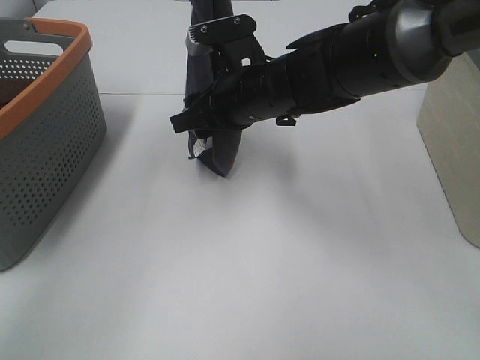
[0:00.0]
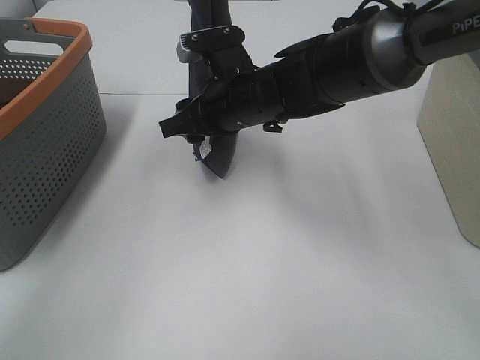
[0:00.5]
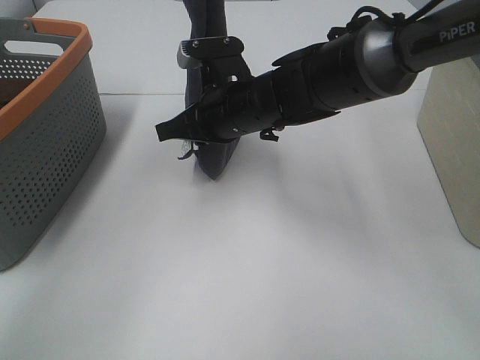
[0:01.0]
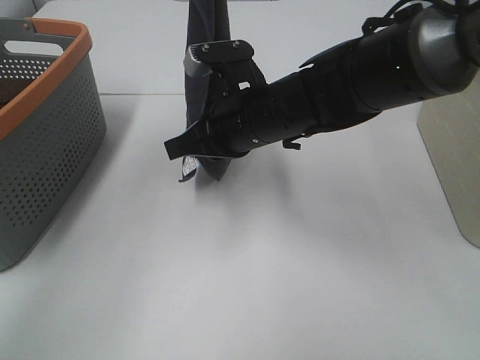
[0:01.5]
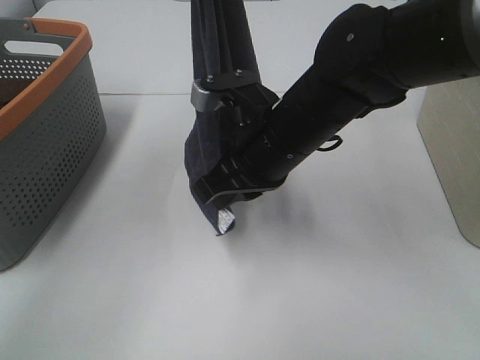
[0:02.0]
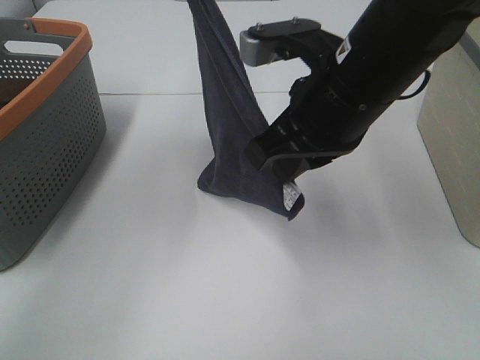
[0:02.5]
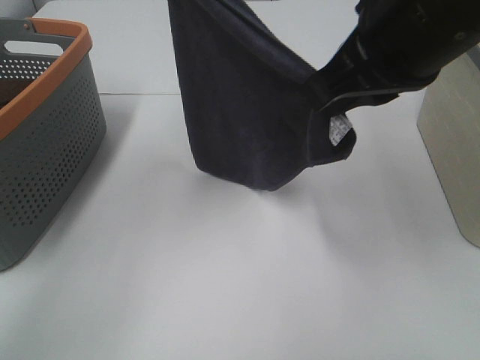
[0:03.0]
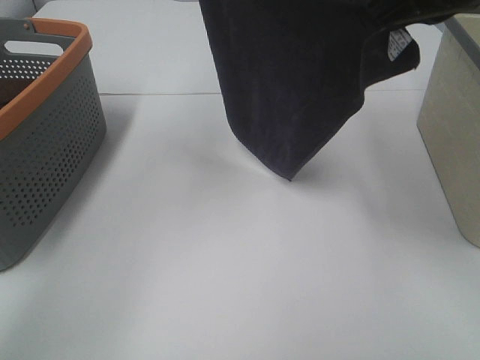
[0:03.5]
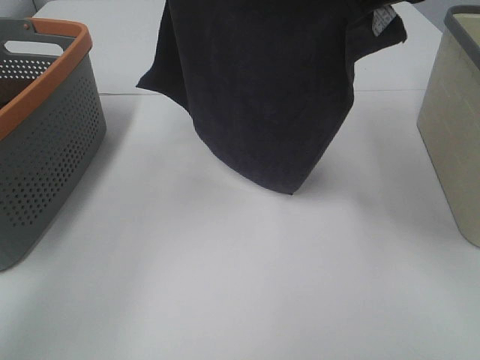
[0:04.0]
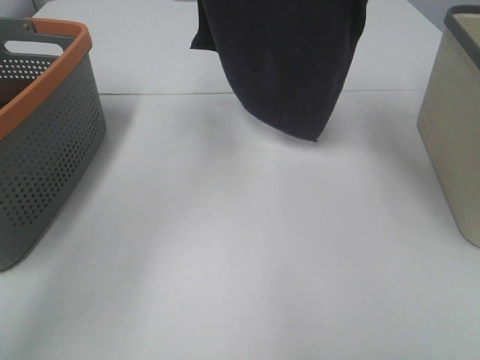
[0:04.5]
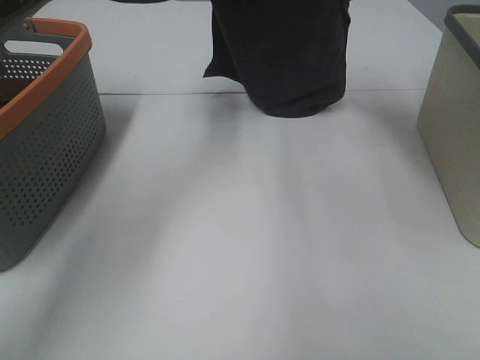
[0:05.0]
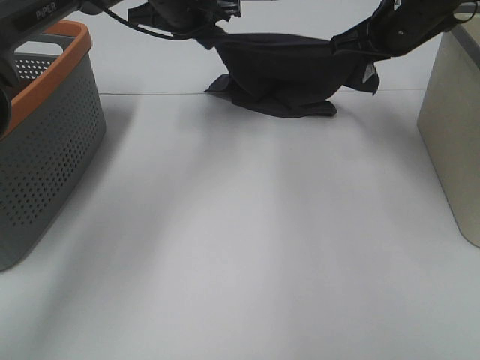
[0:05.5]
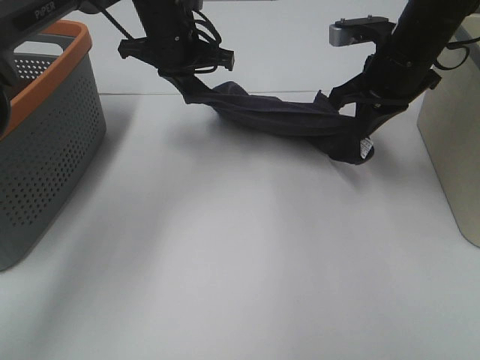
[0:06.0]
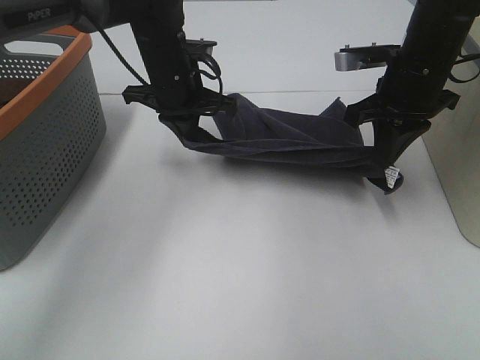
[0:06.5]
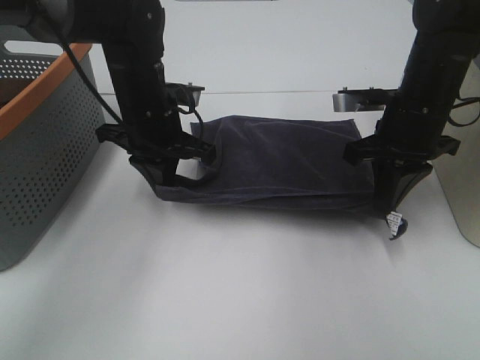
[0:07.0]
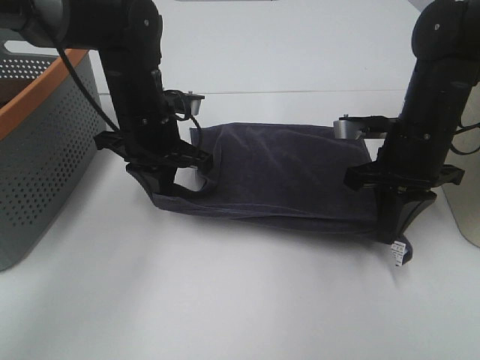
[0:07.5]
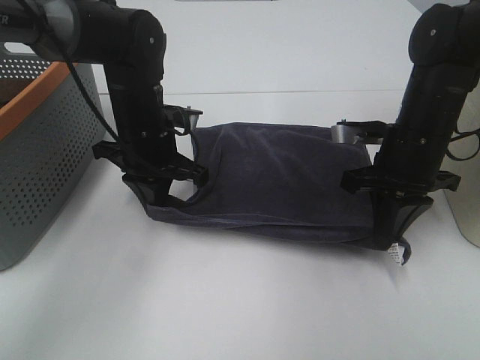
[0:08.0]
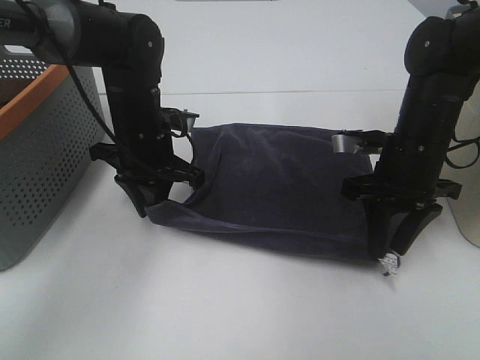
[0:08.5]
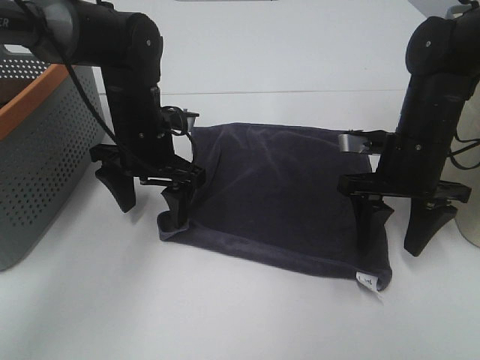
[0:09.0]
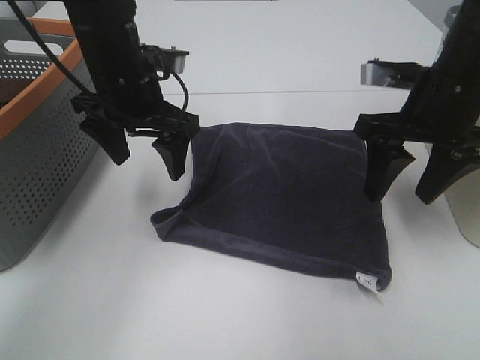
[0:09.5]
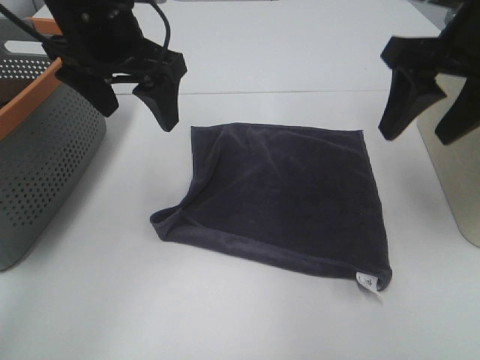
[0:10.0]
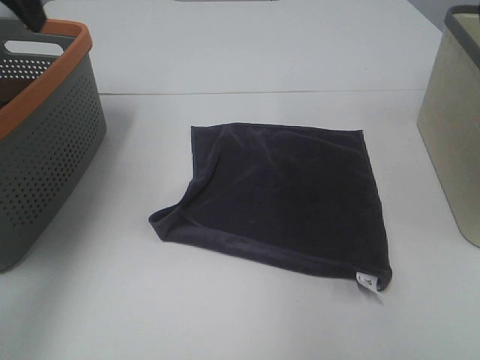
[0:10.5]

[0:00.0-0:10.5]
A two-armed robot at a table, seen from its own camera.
Task of the whole recording: Remove the towel and place it.
Step, 0:00.5 to 0:03.5: Left hand: spread the grey towel flat on the table.
Step, 0:00.5 to 0:03.5: Right hand: spread the grey towel flat on the table.
0:00.0 to 0:02.0: The right gripper moves backward, some 5 cm, and closes.
0:02.0 to 0:04.0: The right gripper moves upward and to the right, approximately 20 cm.
0:04.0 to 0:06.5: The left gripper moves downward, about 25 cm. The right gripper goes approximately 20 cm downward and forward.
0:06.5 to 0:08.5: The right gripper goes roughly 10 cm downward and backward, and opens up; the left gripper heads backward, covering approximately 5 cm.
0:08.5 to 0:10.5: The left gripper moves upward and to the left, approximately 30 cm, and opens up. Meanwhile the right gripper goes some 25 cm upward, and opens its fingers.

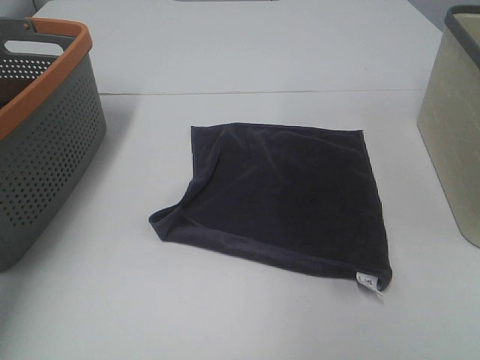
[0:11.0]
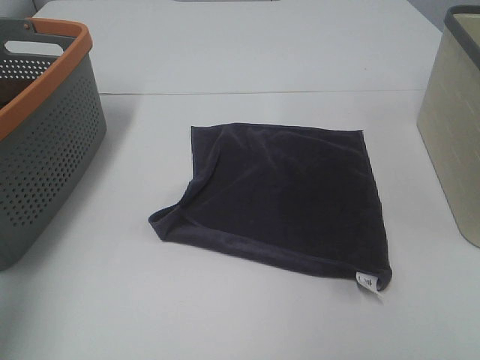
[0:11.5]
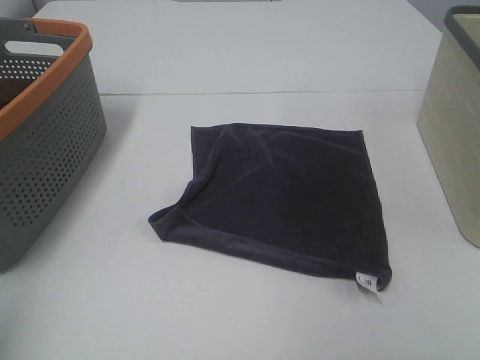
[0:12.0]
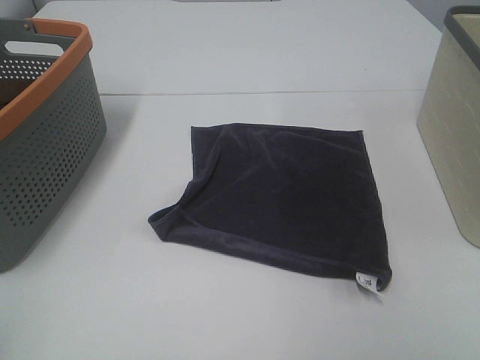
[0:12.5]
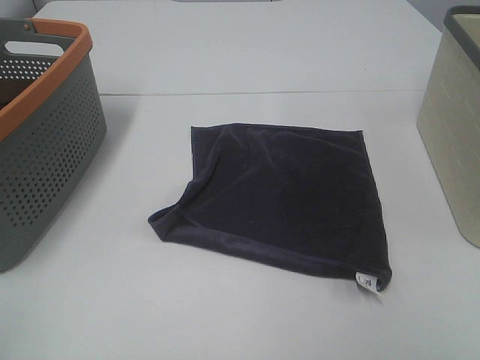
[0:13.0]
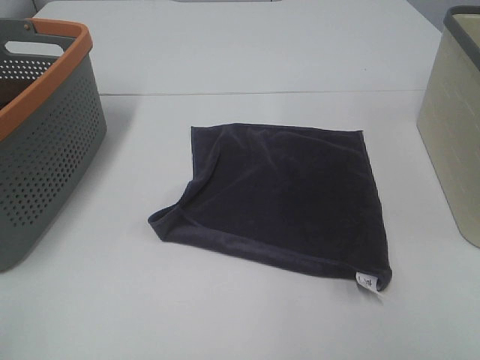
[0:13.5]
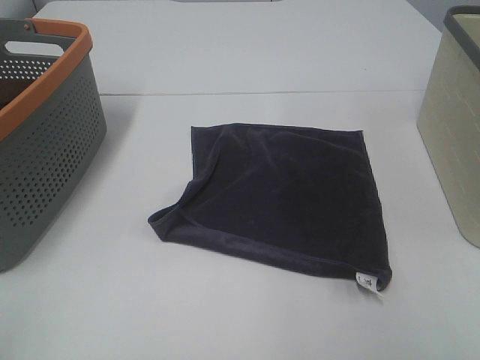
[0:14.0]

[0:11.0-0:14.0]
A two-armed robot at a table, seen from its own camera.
Task of the whole recording: Remove the towel and place it.
0:11.0 to 0:12.5: The left gripper is displaced backward by some 30 cm.

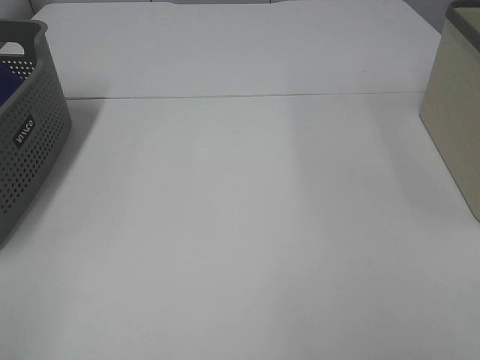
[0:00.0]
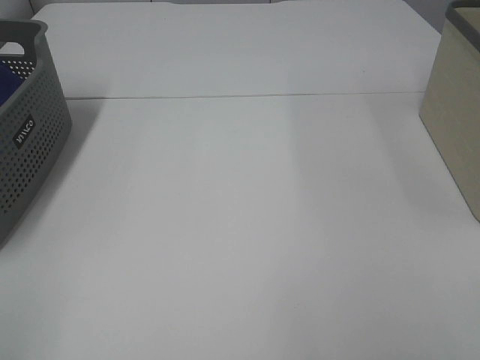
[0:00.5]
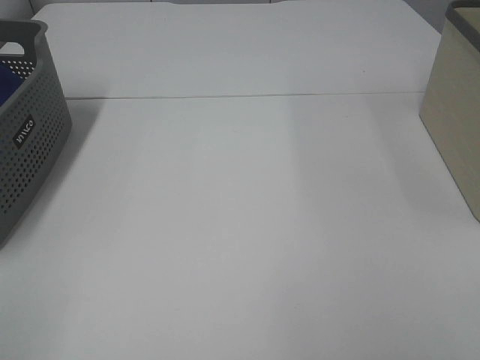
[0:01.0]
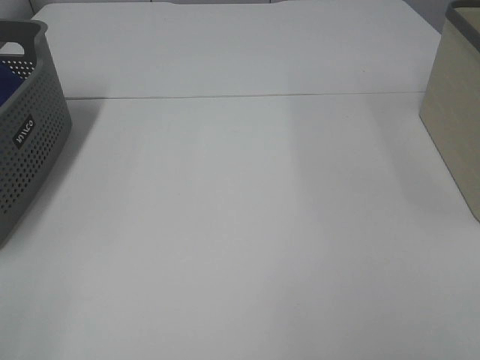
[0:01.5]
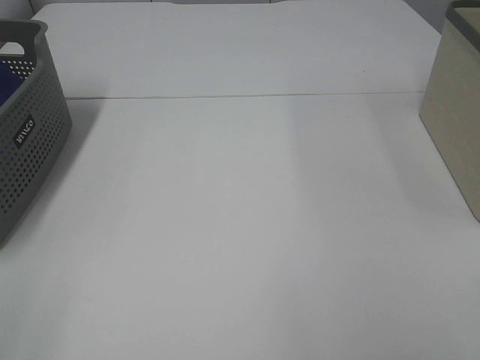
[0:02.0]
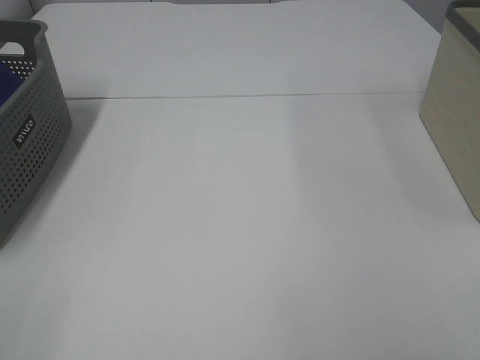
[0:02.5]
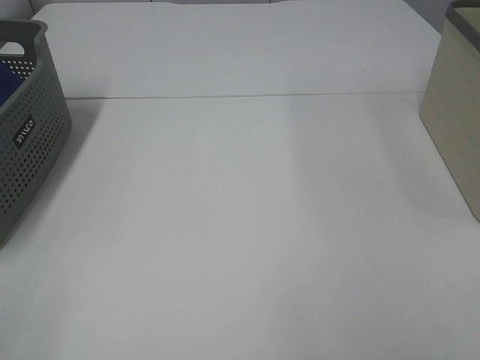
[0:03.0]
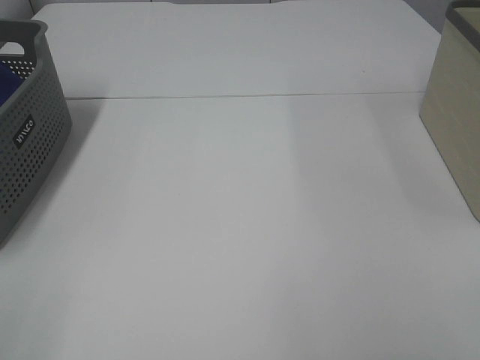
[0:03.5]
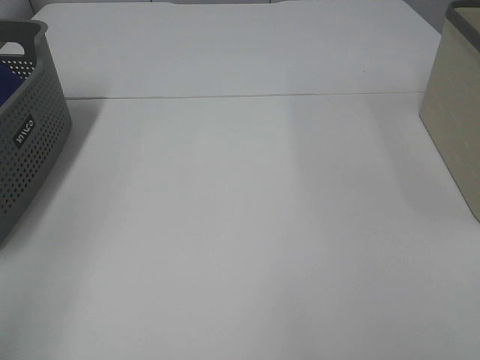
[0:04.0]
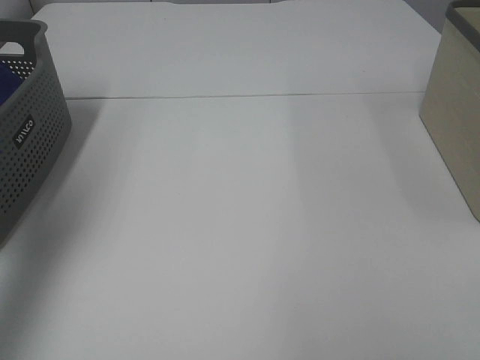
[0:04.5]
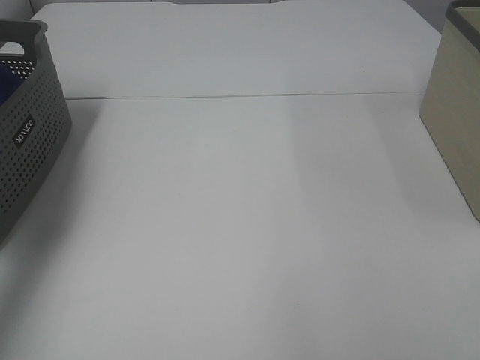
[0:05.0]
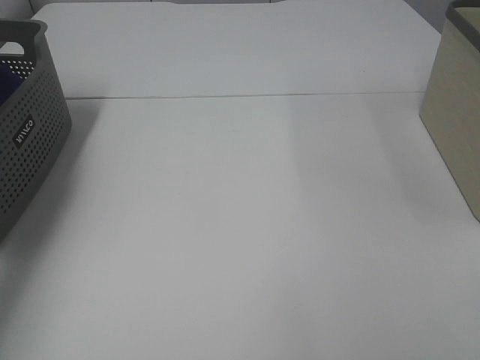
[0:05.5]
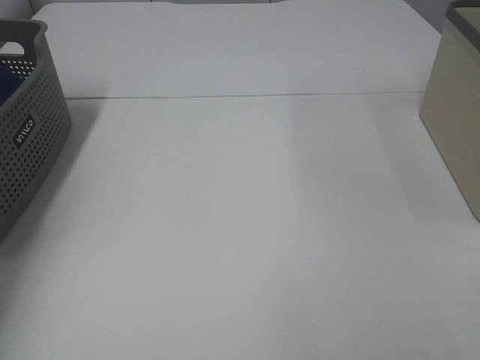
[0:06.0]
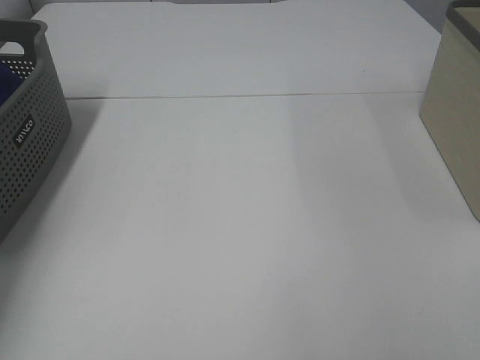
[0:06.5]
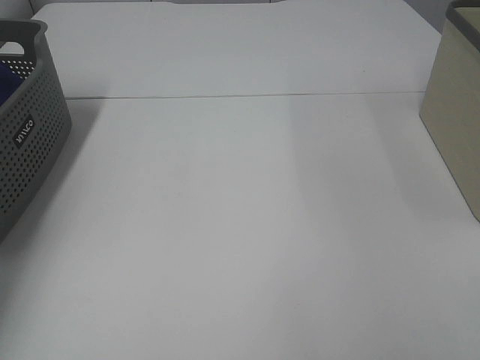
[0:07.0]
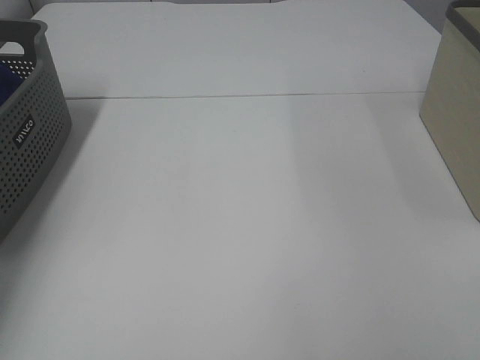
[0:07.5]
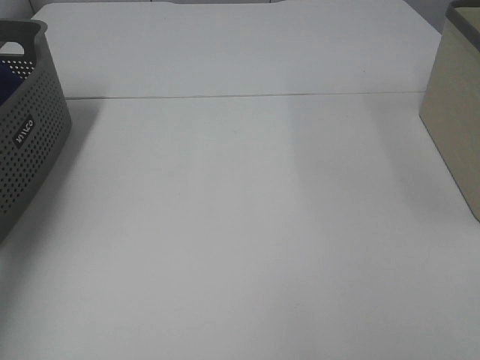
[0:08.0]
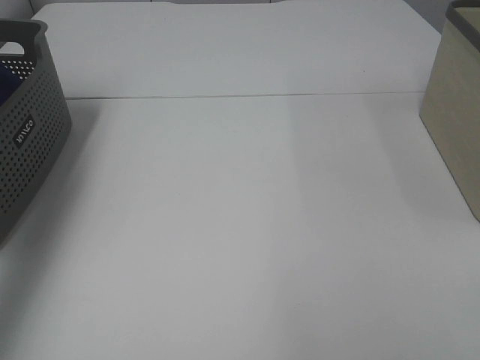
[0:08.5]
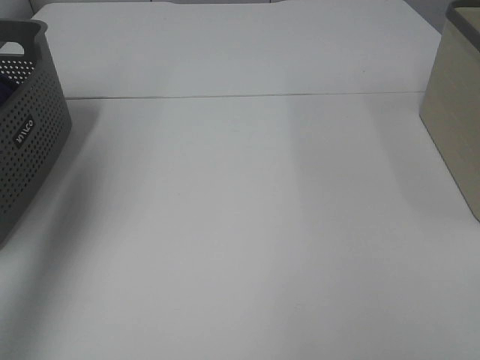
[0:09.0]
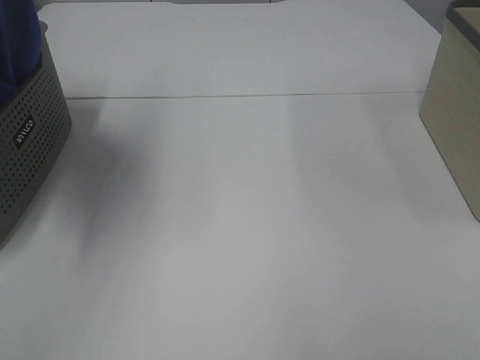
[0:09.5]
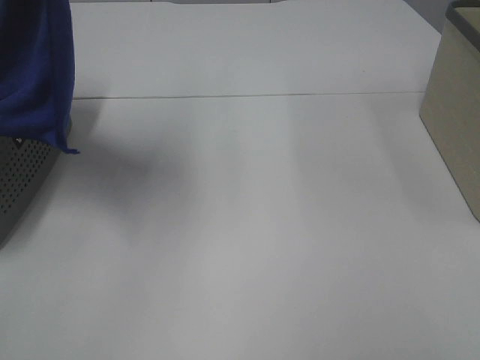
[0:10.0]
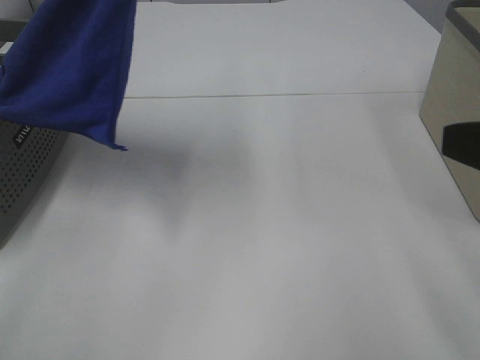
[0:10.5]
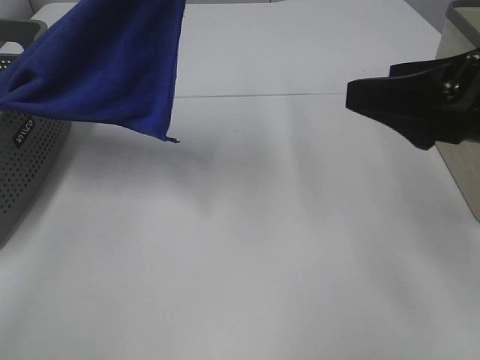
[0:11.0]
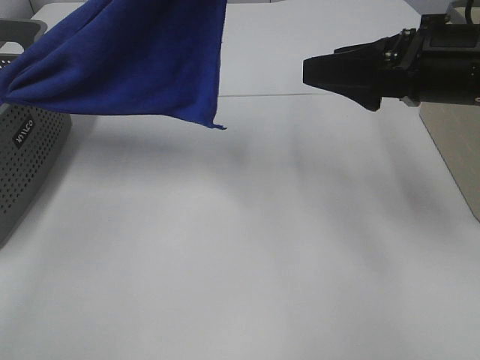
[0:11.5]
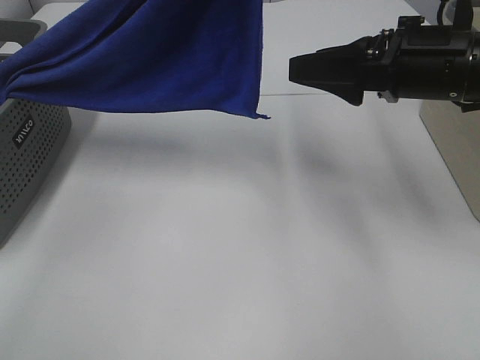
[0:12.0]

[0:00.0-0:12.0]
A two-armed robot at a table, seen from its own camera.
Task of the whole recording: Remove the towel and place it.
0:04.0 to 0:06.0: The left gripper goes roughly 40 cm forward and downward.
0:08.0 to 0:10.0: The left gripper travels to the right and upward by roughly 25 cm.
0:10.0 to 0:12.0: The left gripper travels to the right by some 15 cm. The right gripper moves forward, approximately 25 cm.
